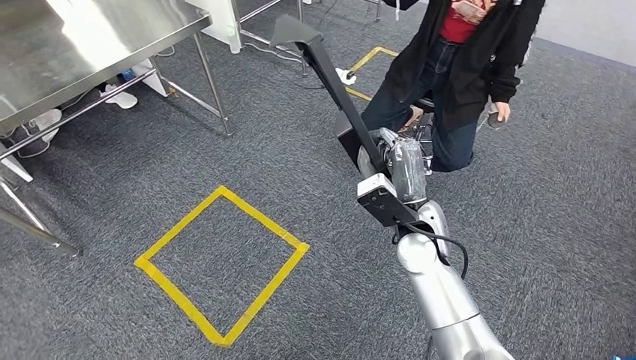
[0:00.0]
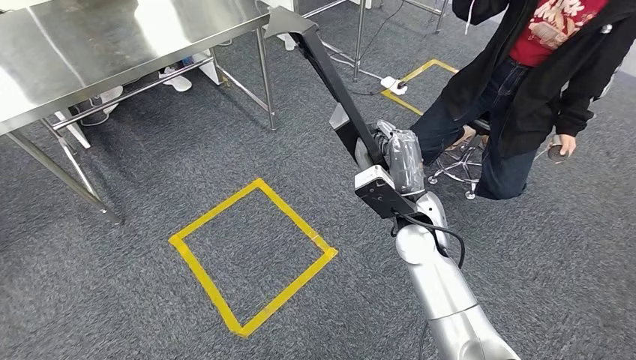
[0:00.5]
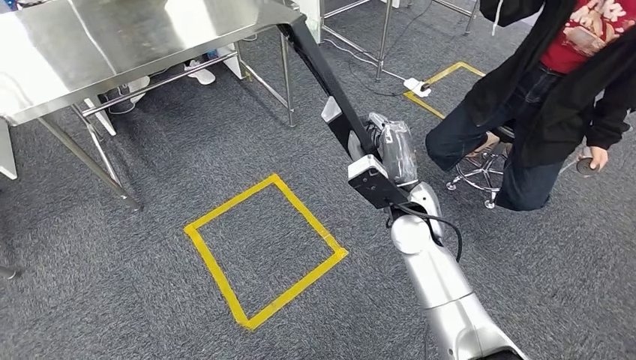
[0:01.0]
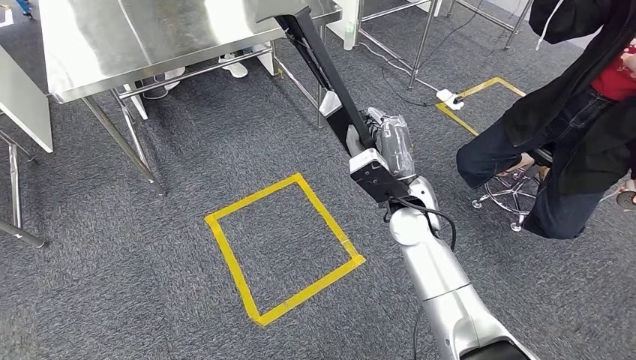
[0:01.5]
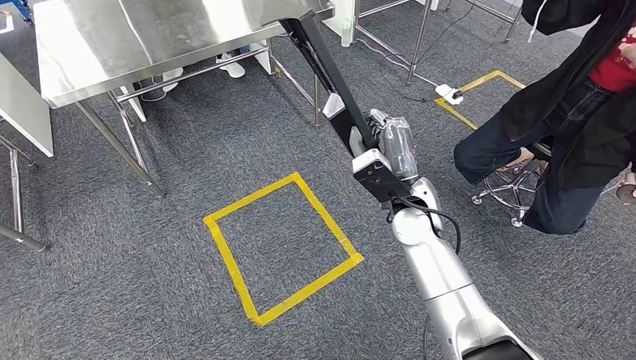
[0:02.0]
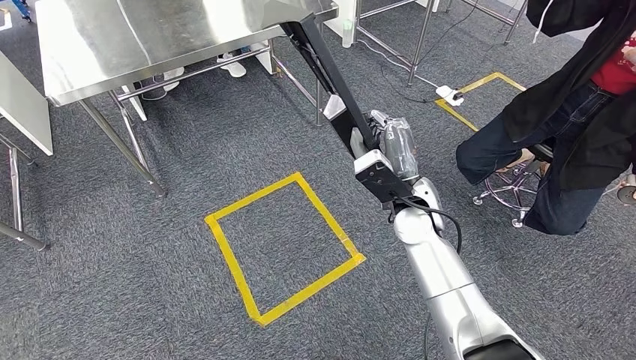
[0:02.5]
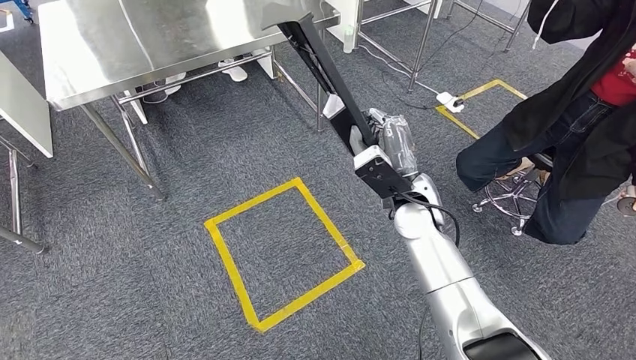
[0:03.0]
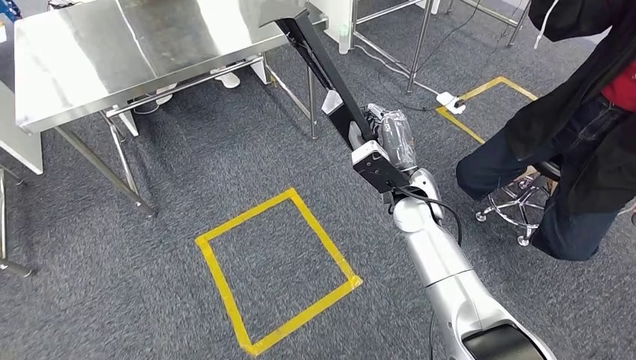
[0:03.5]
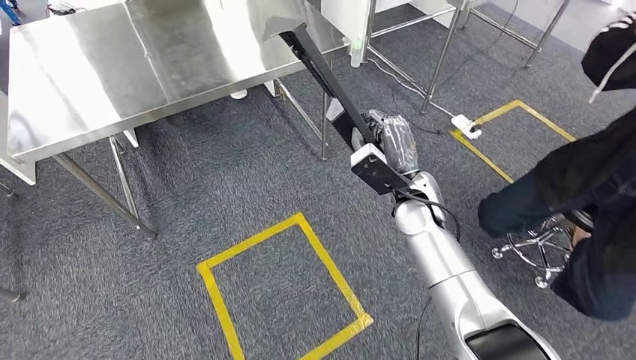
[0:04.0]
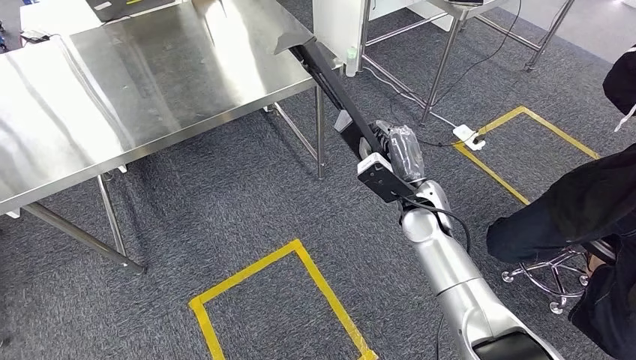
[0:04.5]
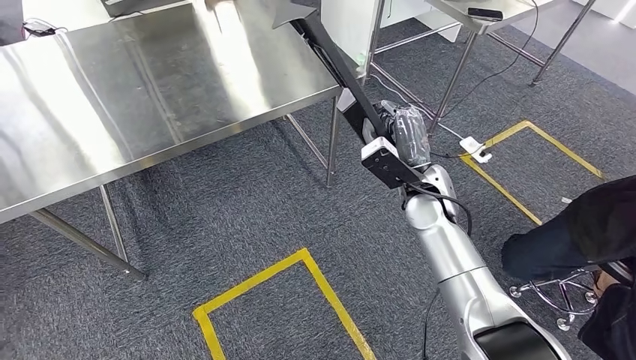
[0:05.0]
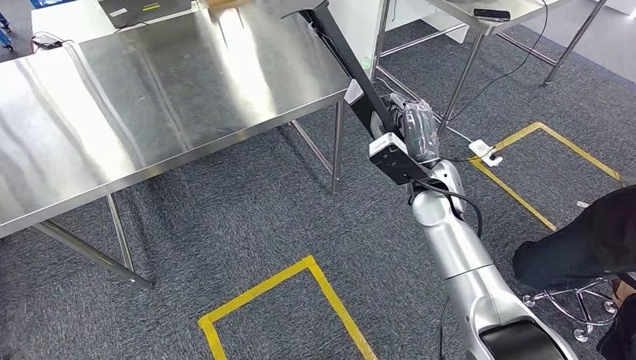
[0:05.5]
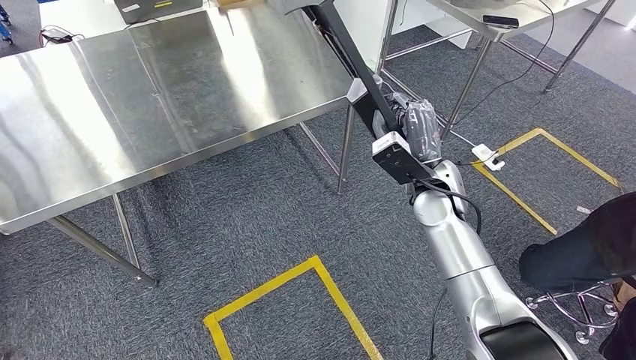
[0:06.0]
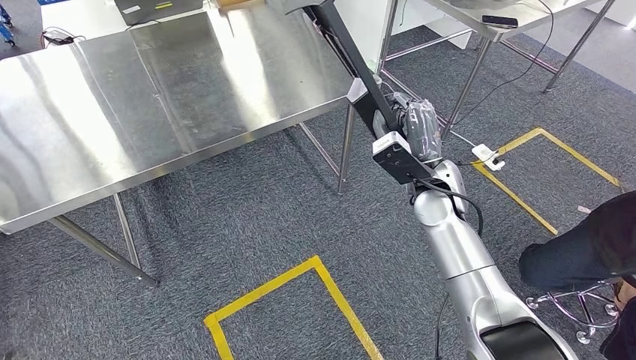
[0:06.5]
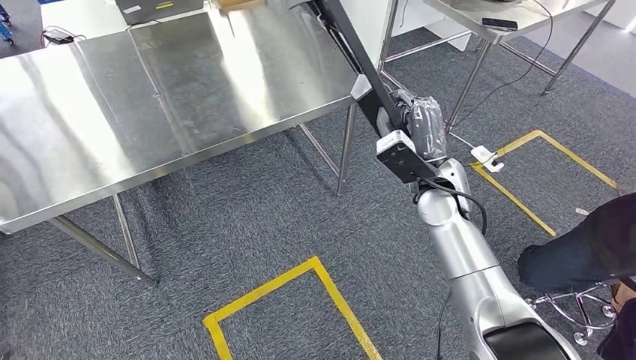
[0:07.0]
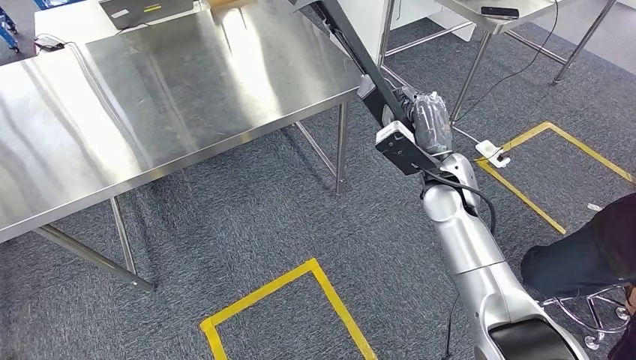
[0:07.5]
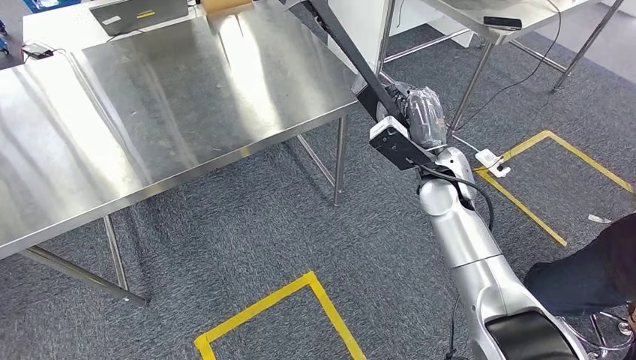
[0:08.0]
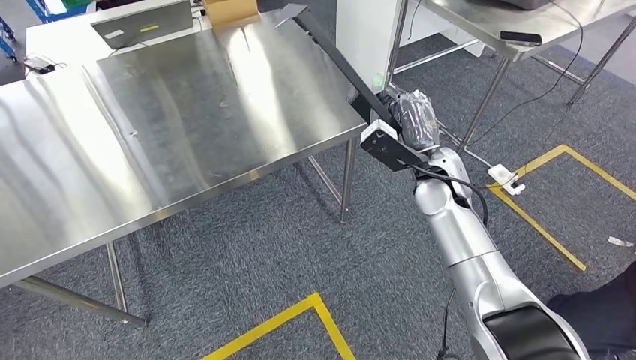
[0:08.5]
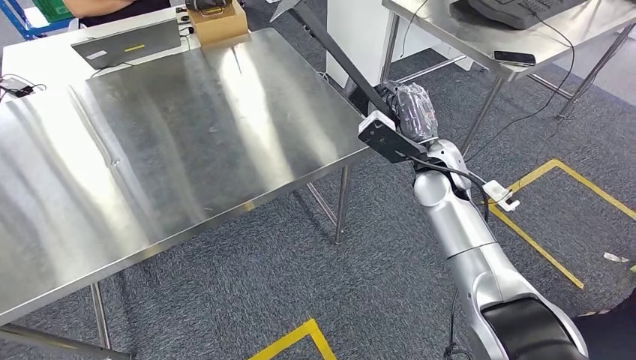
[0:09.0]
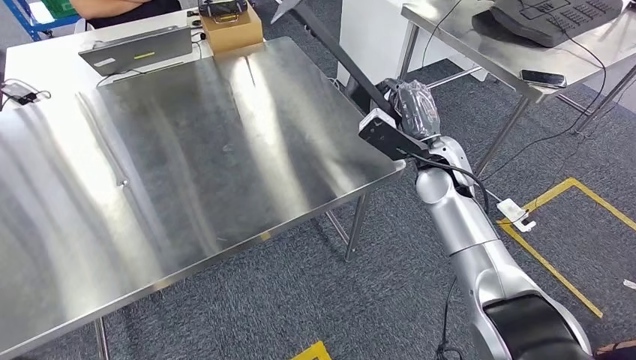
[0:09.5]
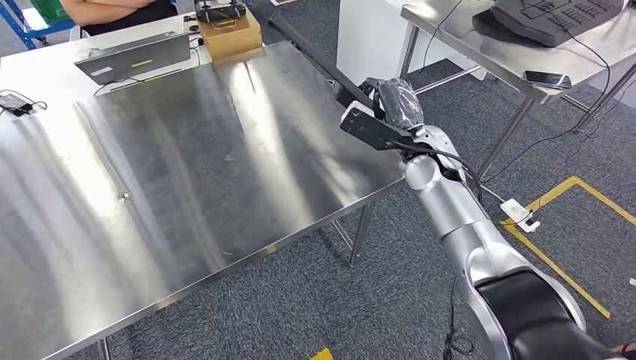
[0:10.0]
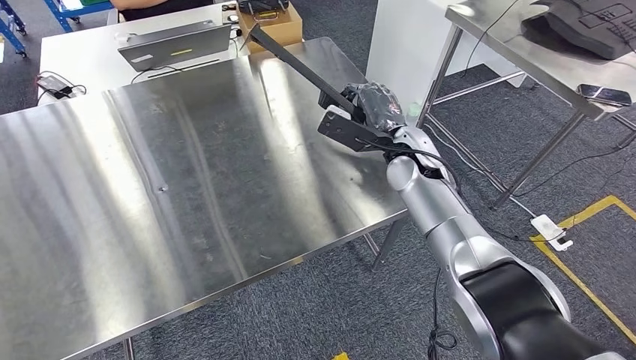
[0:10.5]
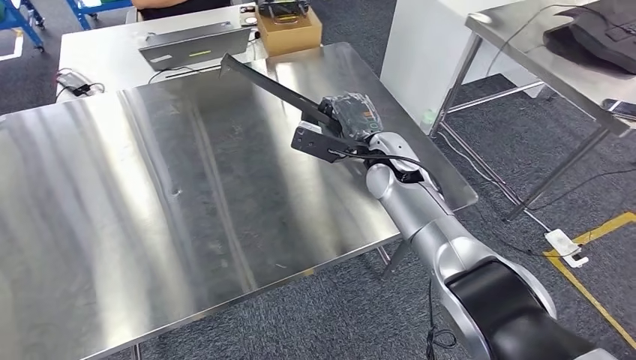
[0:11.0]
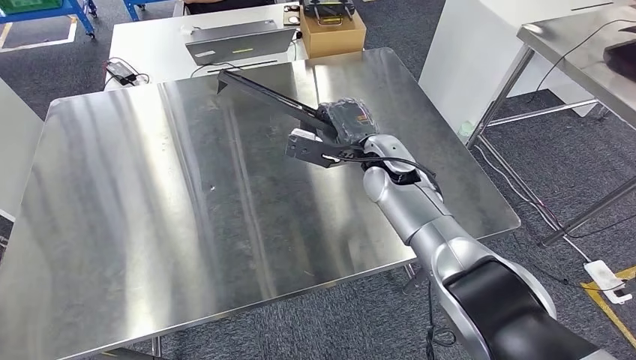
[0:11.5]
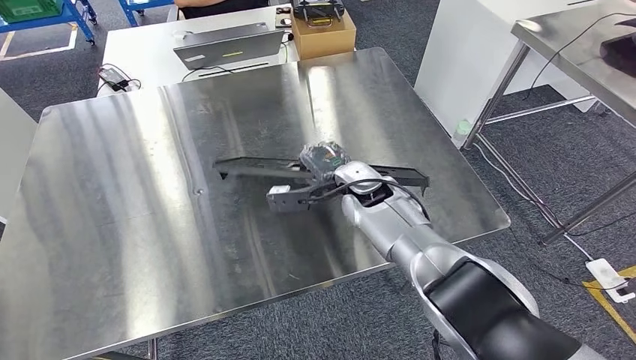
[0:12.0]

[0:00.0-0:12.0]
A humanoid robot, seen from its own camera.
Step, 0.0 to 9.0 s: Move the large material to the front of the workbench.

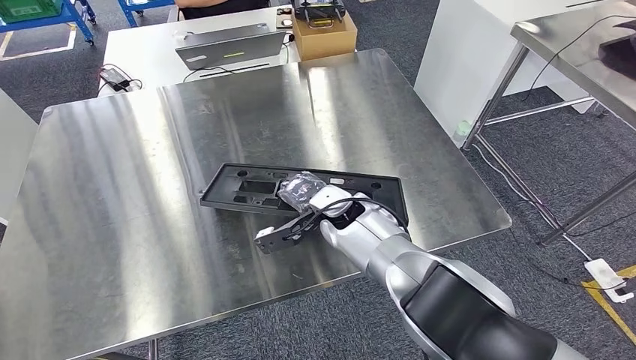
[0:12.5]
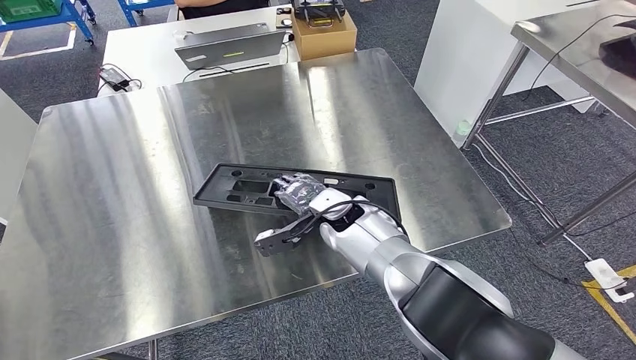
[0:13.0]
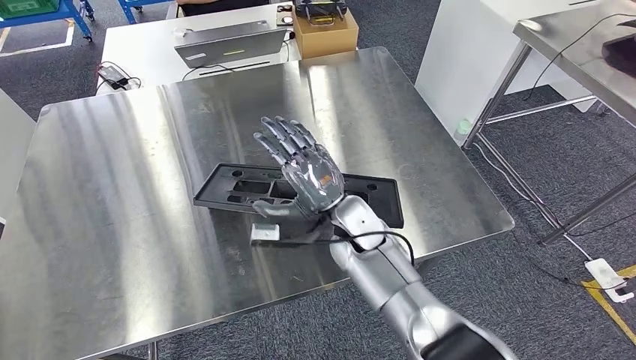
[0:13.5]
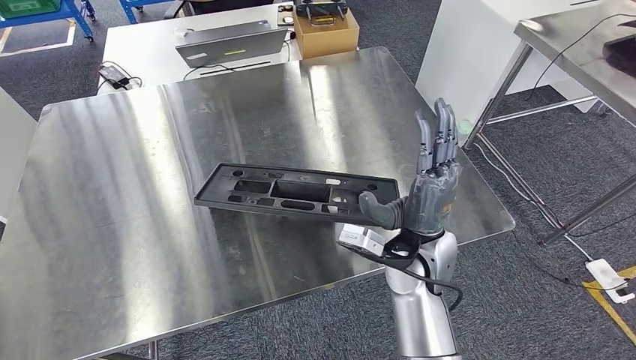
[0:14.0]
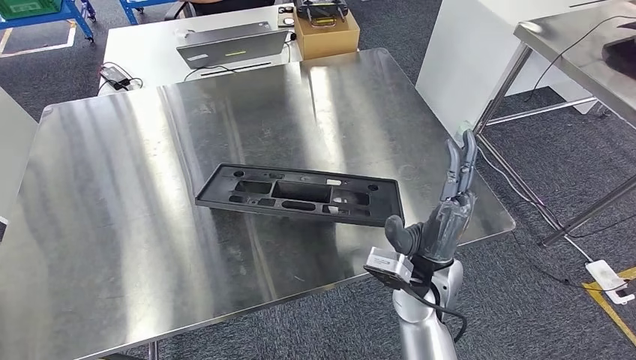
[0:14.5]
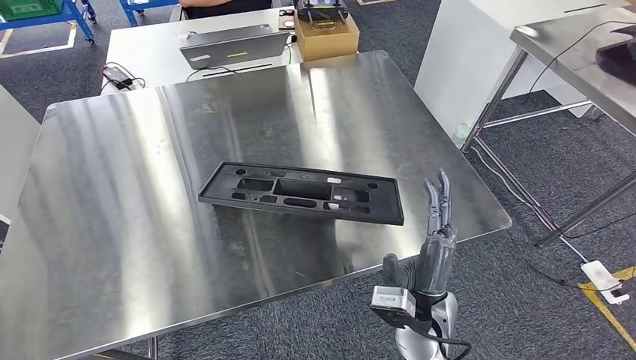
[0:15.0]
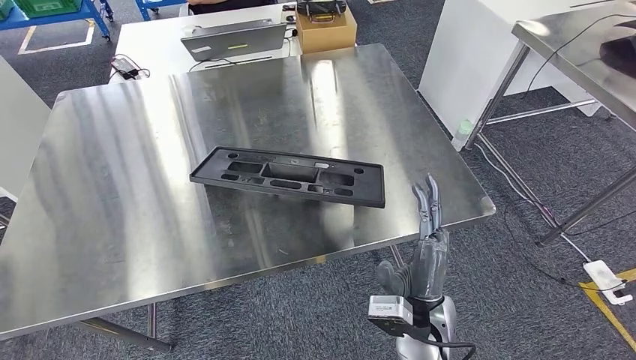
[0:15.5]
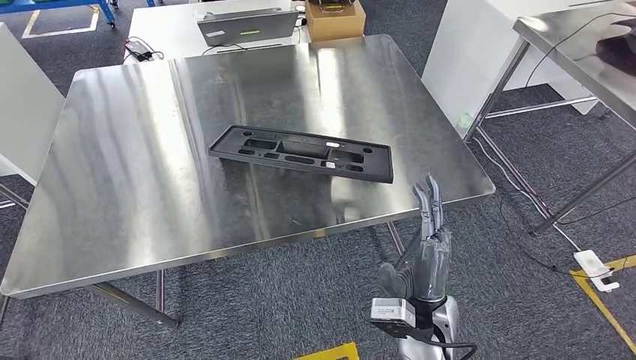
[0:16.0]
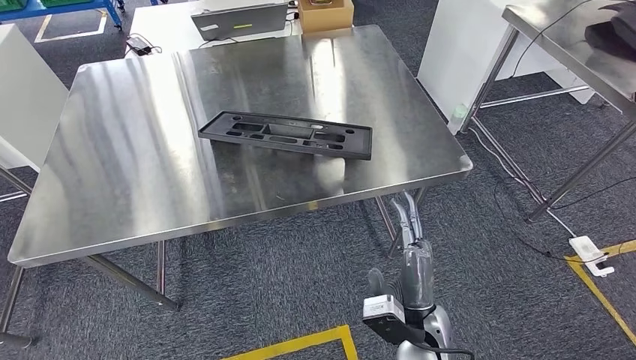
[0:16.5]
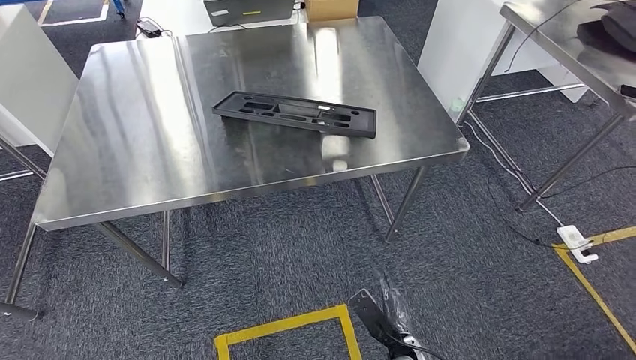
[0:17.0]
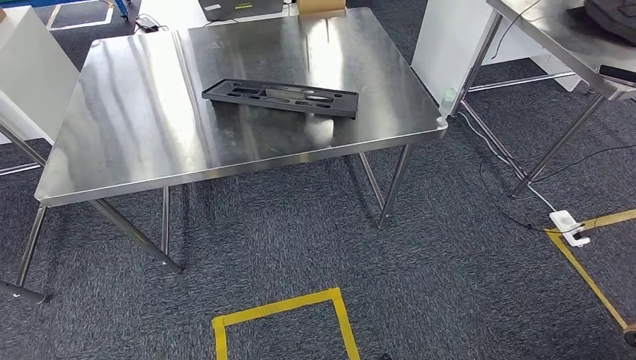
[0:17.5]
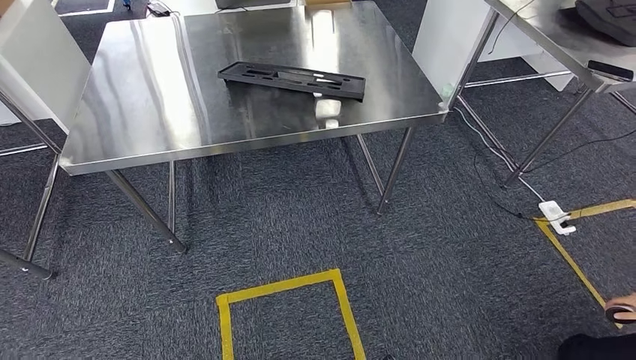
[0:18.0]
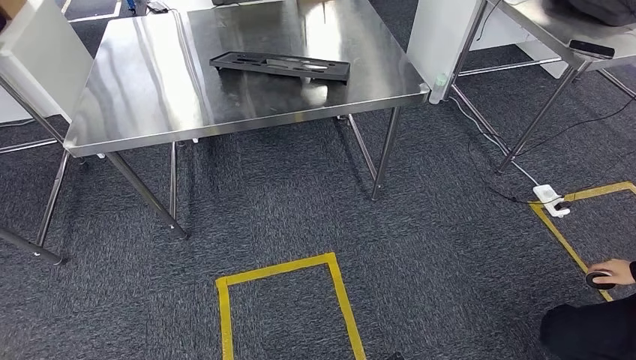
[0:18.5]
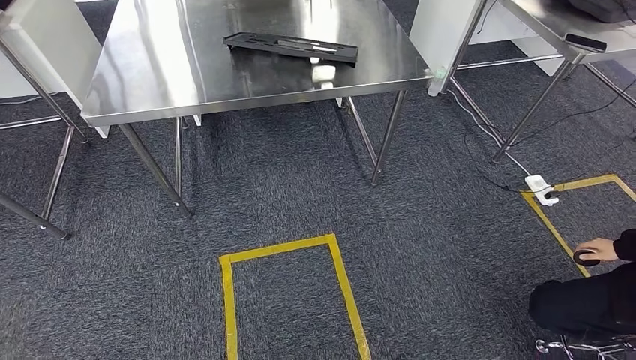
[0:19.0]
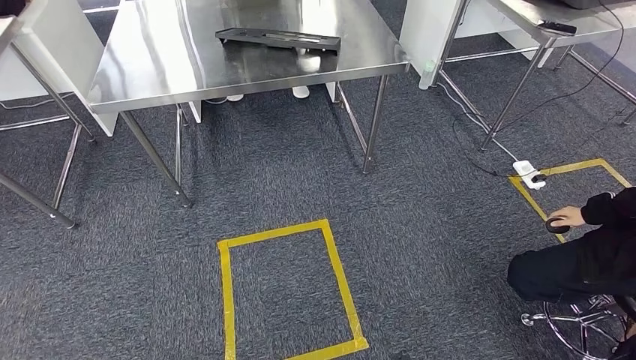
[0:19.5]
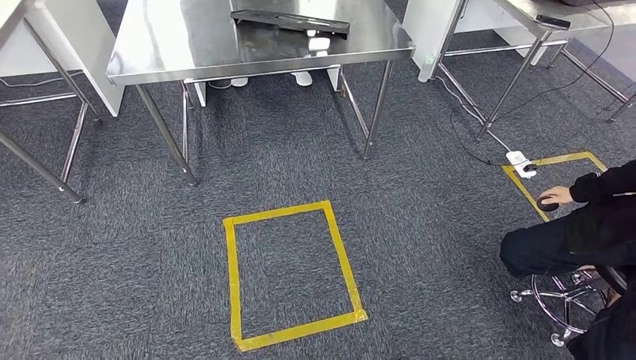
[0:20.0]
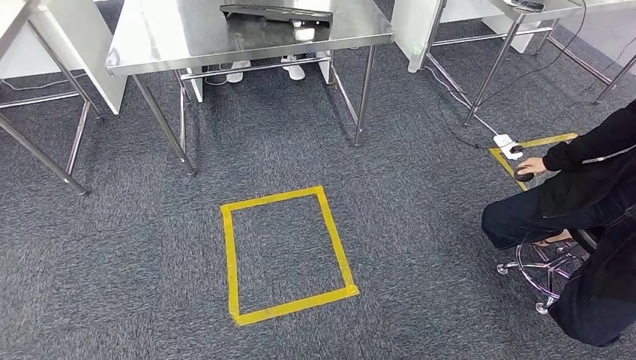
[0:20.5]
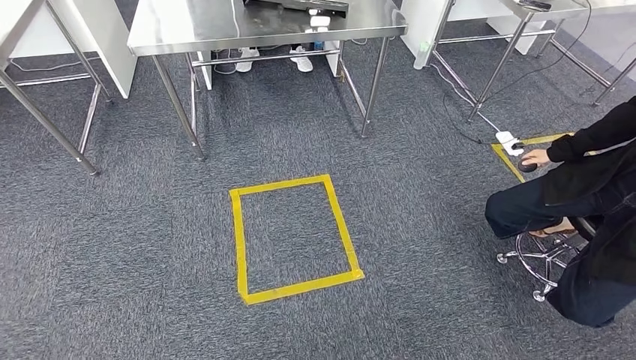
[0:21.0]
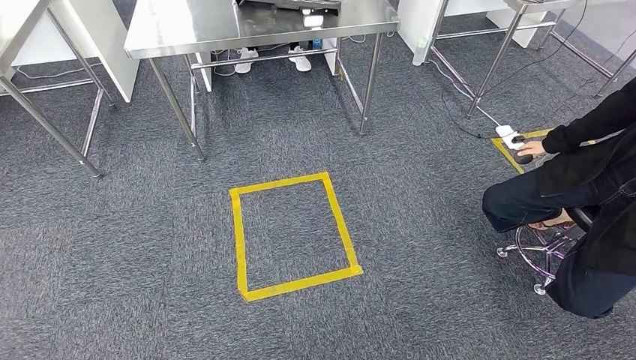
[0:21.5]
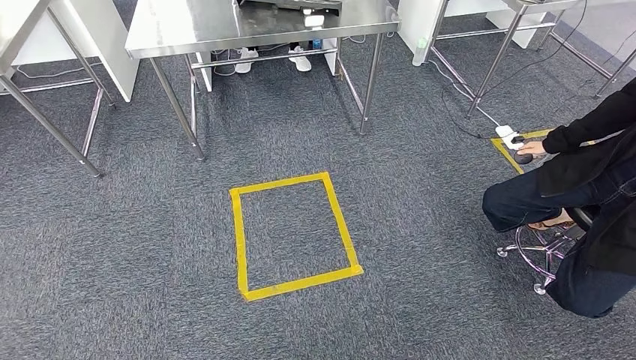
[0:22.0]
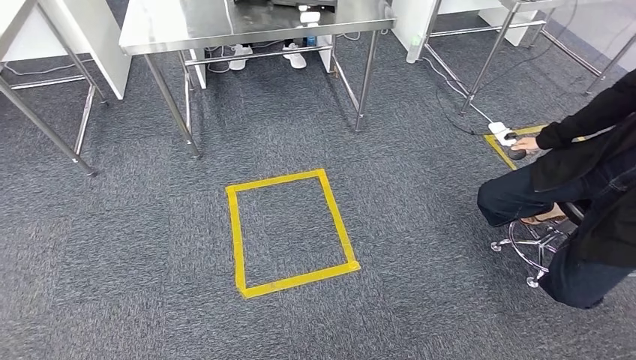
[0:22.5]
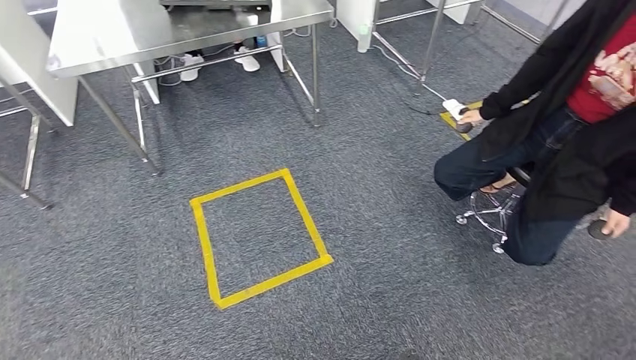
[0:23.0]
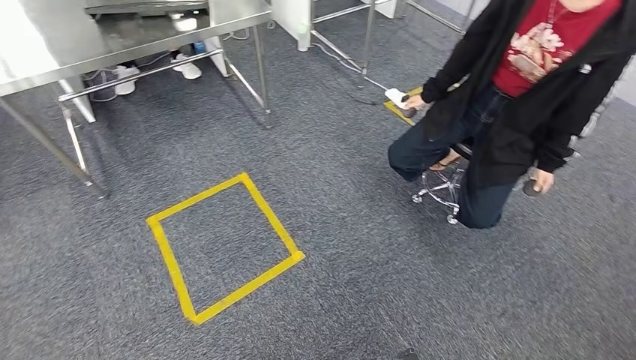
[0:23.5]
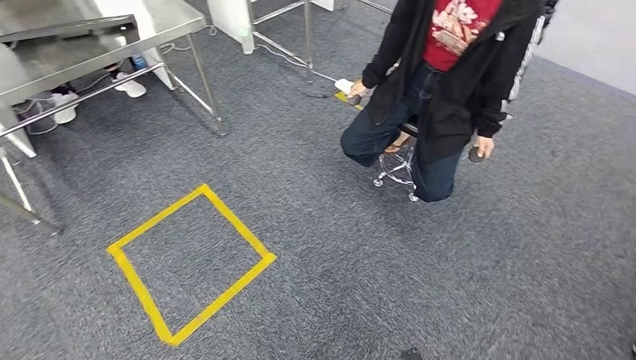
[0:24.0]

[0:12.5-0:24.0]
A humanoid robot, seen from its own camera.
Step, 12.5 to 19.0 s: Insert the large material into the corresponding hole on the workbench.
12.5 to 14.5 s: The right hand shifts approximately 20 cm backward and to the right.
